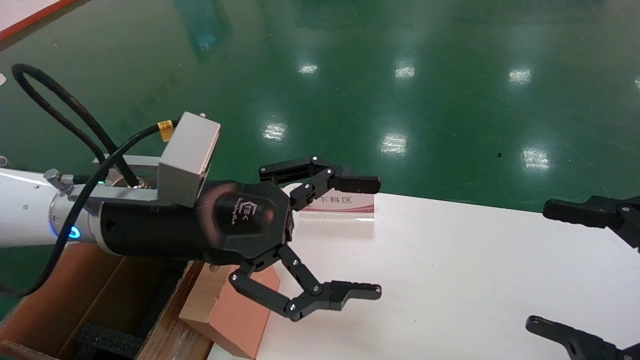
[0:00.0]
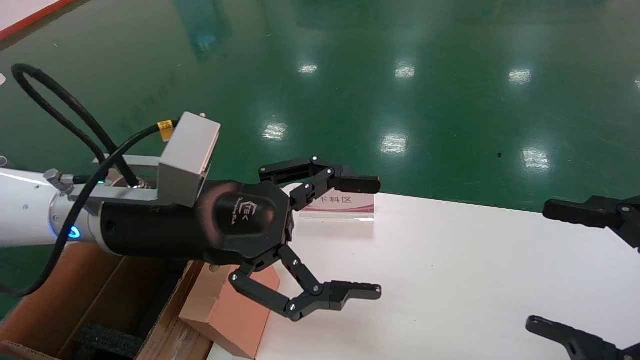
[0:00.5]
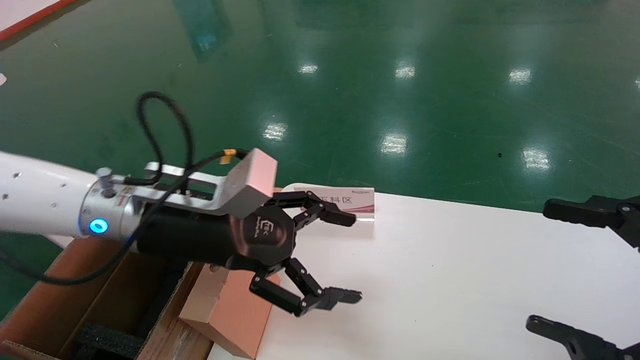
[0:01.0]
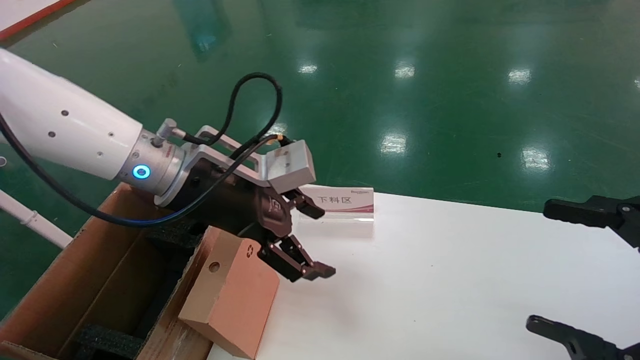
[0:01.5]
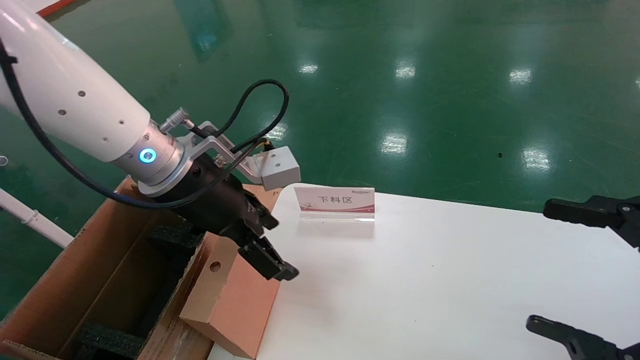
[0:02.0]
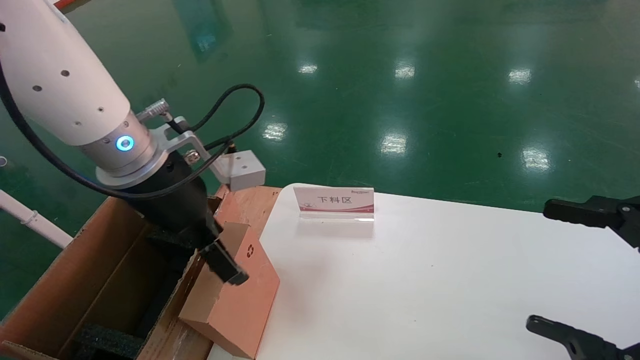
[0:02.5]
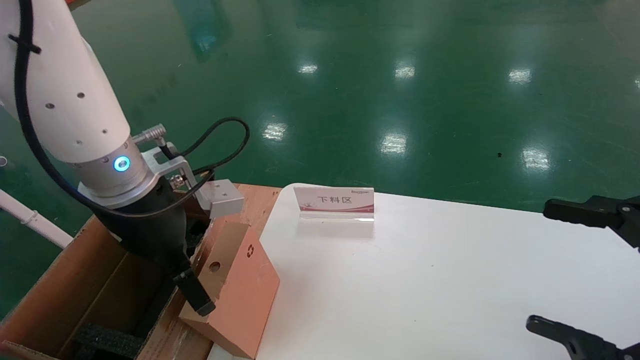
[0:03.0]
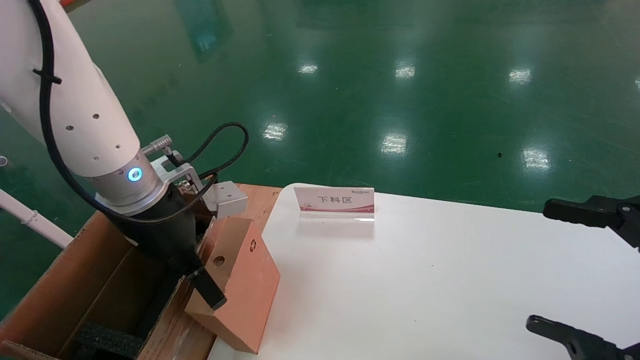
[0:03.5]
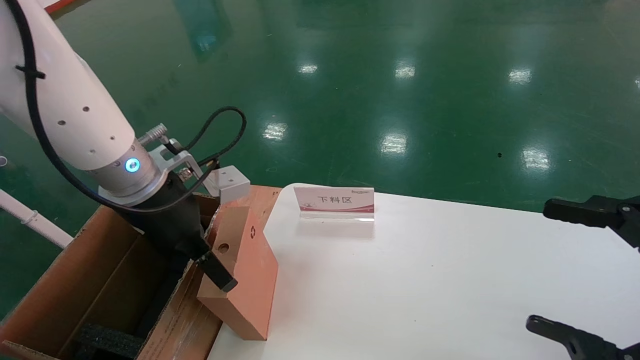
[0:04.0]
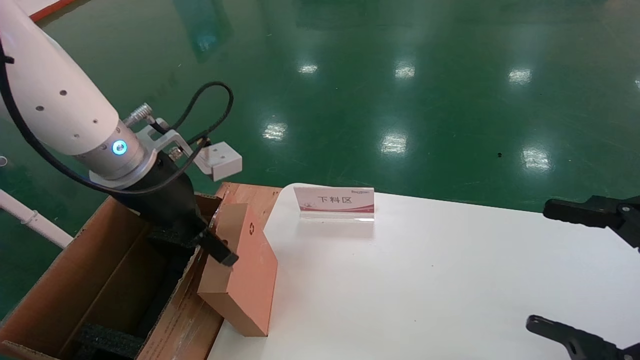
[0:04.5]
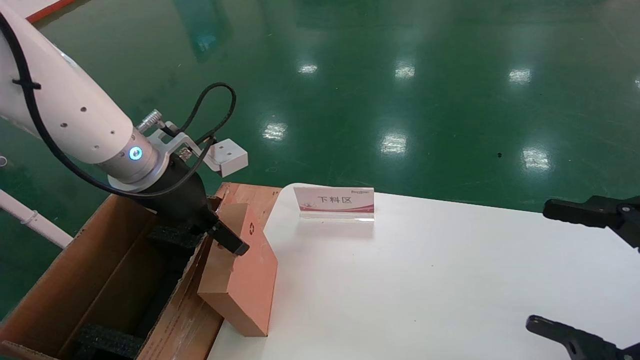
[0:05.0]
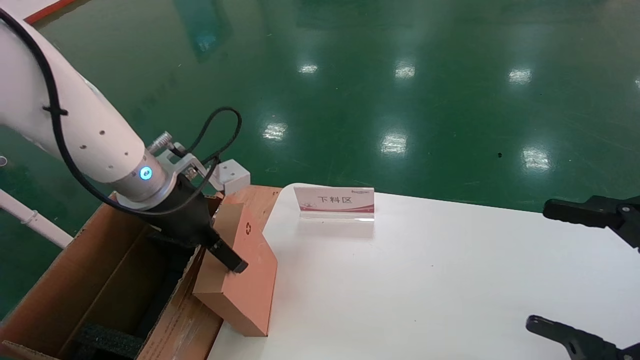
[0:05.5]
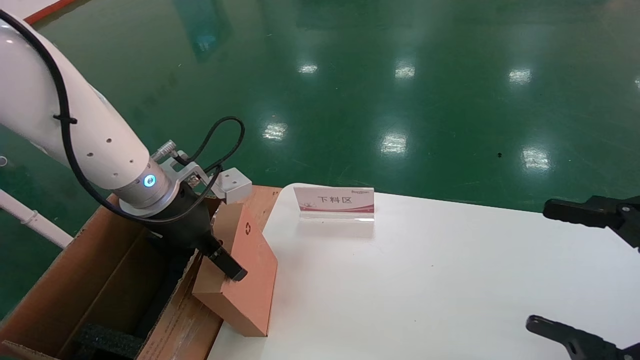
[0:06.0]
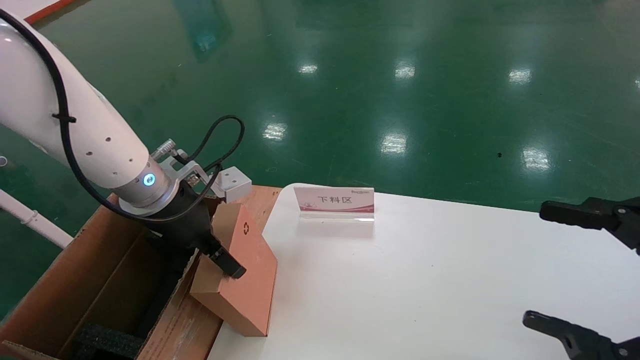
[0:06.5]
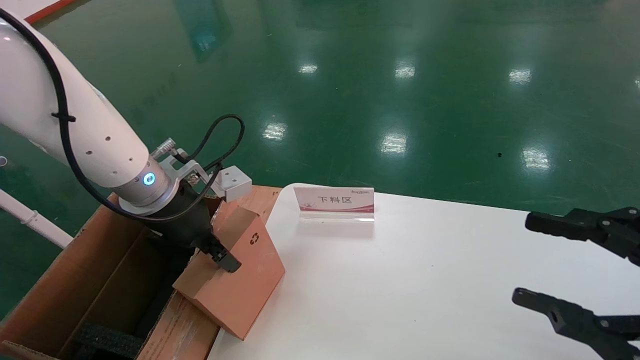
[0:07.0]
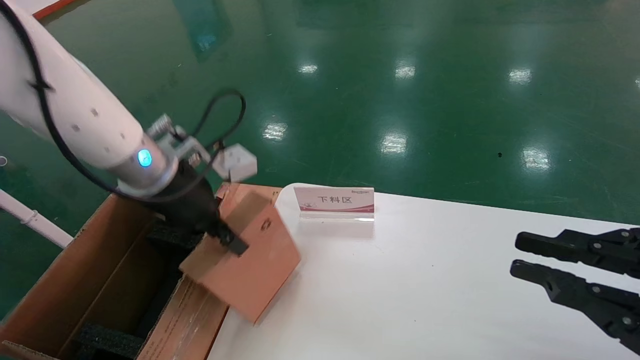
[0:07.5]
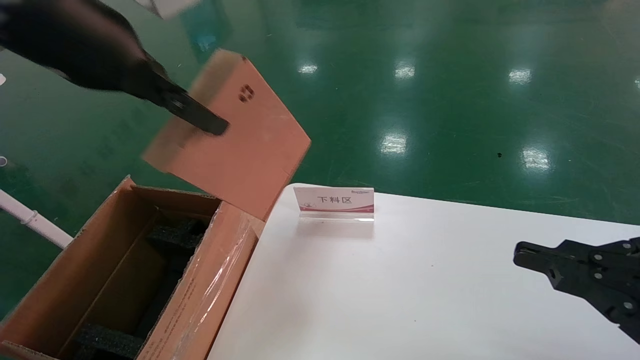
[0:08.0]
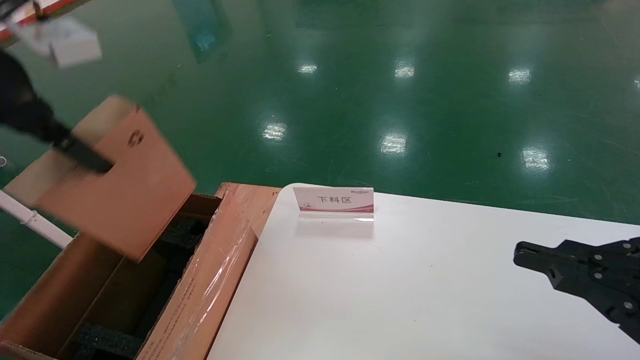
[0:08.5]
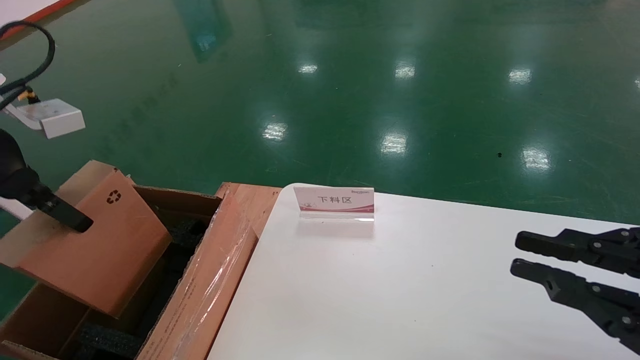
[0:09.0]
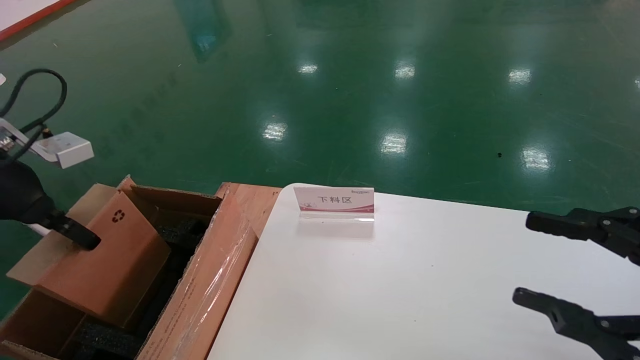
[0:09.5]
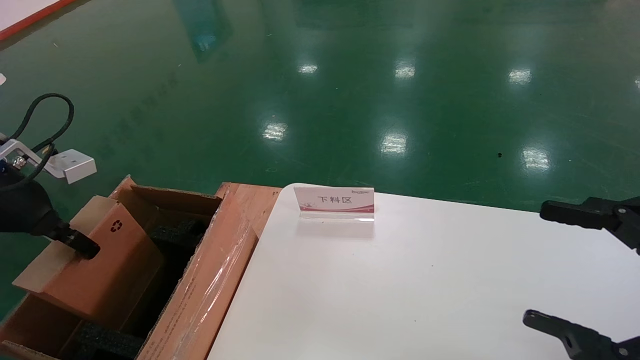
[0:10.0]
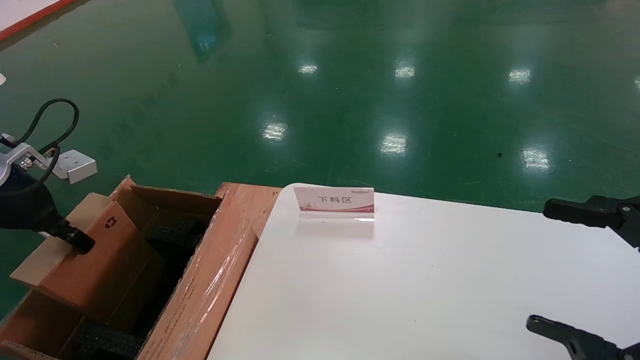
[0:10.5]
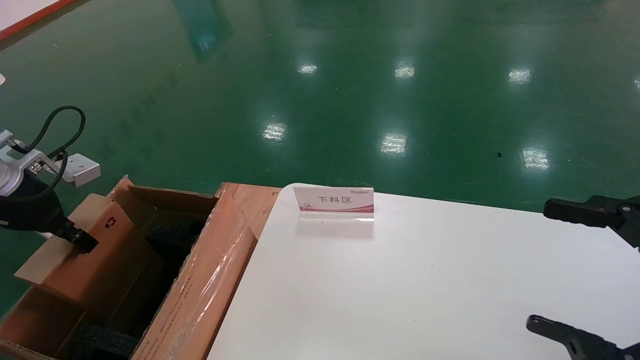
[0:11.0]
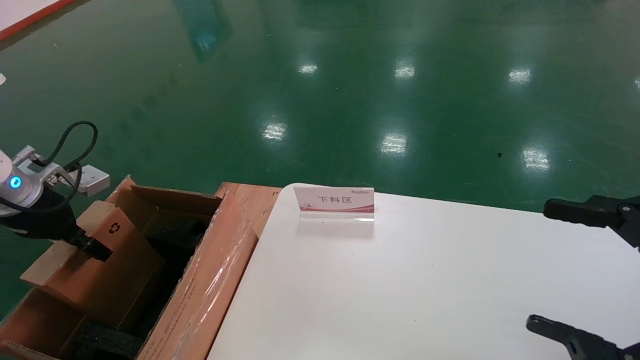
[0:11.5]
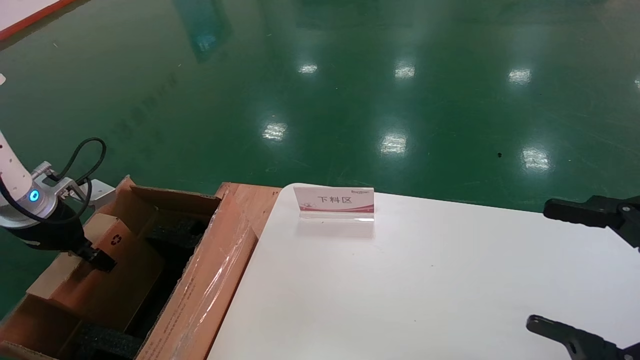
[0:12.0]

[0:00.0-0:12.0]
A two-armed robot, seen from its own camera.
Task of the whole recording: pick up the small cardboard box and load it into the large cardboard box.
Step, 0:01.0 to 0:07.0: Pick up the mouse and power cord box.
0:00.0 to 0:02.0: The left gripper travels forward by about 5 cm.
0:04.0 to 0:06.0: The grippers stay close to where they were, moving slightly.
0:06.0 to 0:08.0: The left gripper moves upward and backward, approximately 20 cm, and closes up; the right gripper closes its fingers.
0:08.0 to 0:10.0: The left gripper moves to the left and downward, roughly 25 cm, while the right gripper opens.
0:10.0 to 0:12.0: The left gripper goes some 10 cm downward and forward.

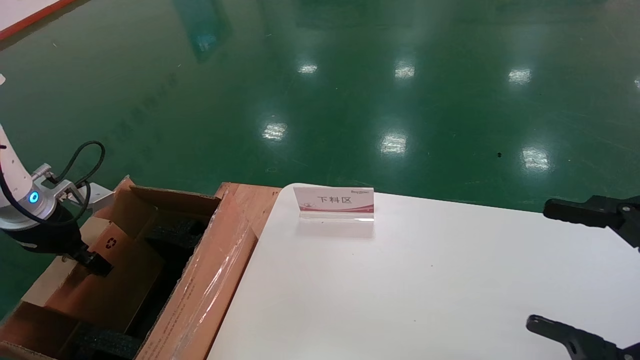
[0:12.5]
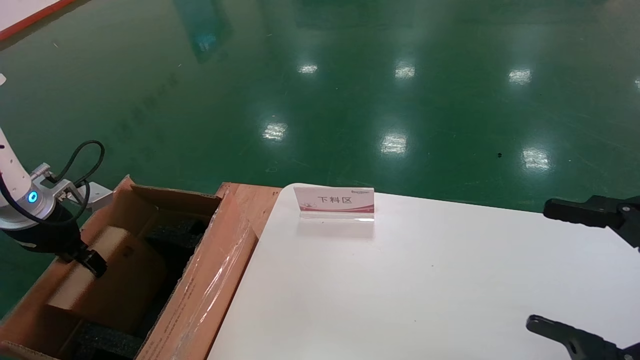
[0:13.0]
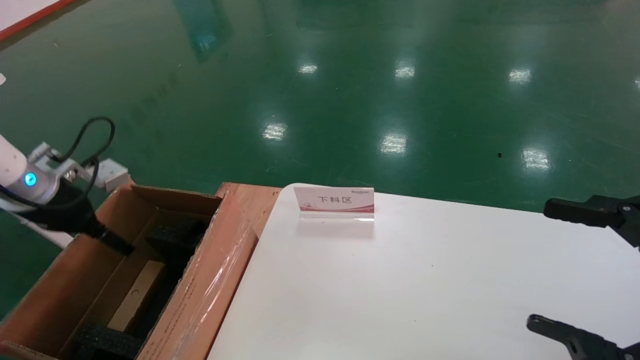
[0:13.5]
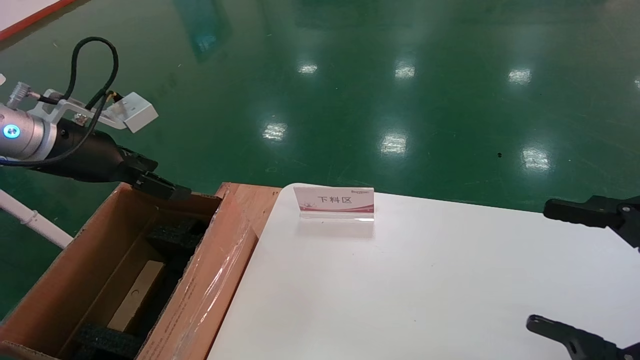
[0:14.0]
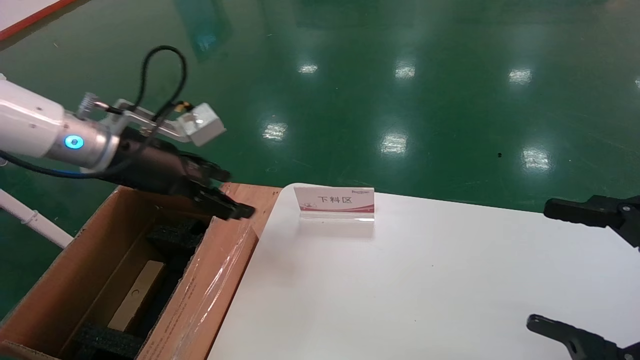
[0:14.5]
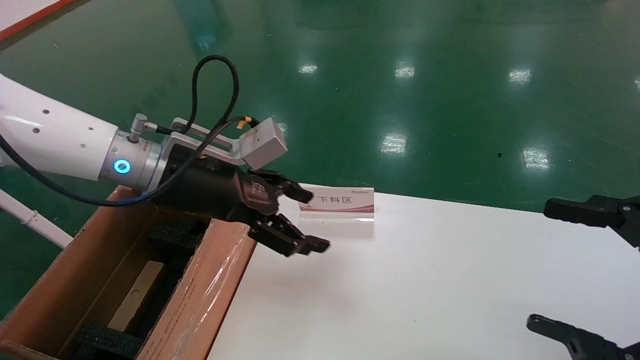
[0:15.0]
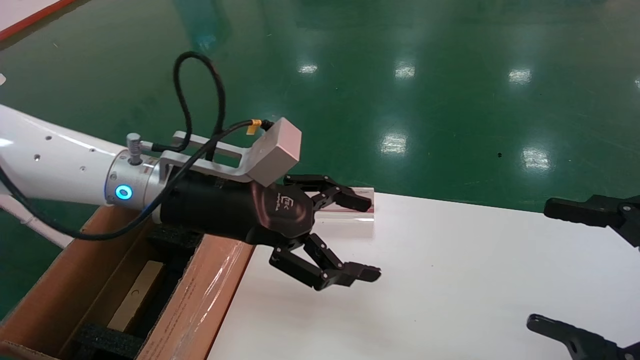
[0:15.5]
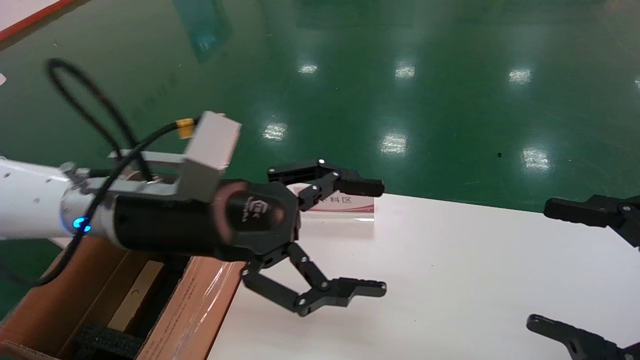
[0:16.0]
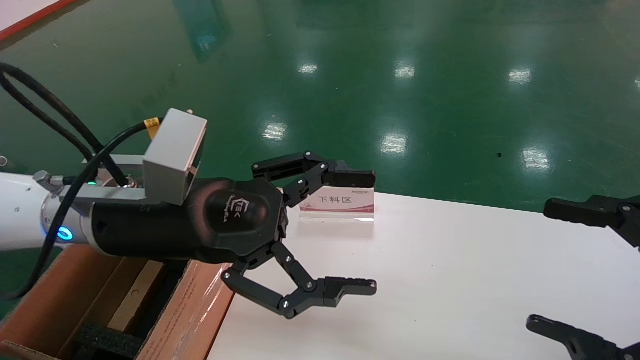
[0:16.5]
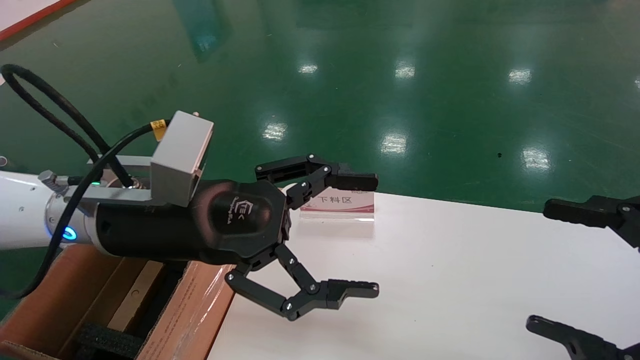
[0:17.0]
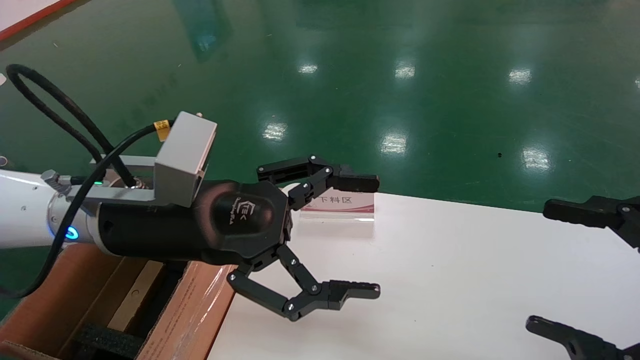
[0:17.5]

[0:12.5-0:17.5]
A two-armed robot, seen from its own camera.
Task of the whole recording: pick up the small cardboard box and load it into the large cardboard box.
0:12.5 to 0:15.0: The left gripper shifts approximately 25 cm to the right, and opens.
0:15.0 to 0:17.5: The left gripper heads backward, covering about 5 cm.
